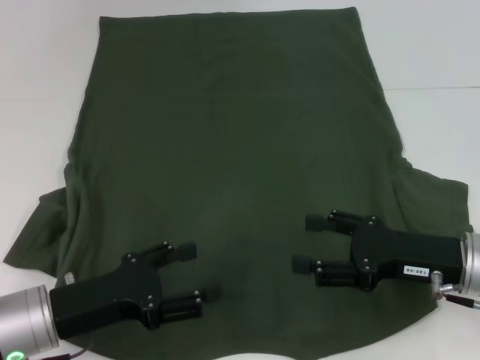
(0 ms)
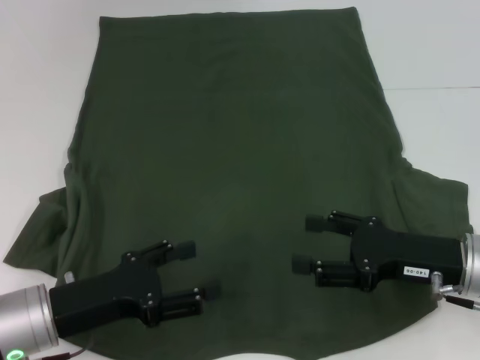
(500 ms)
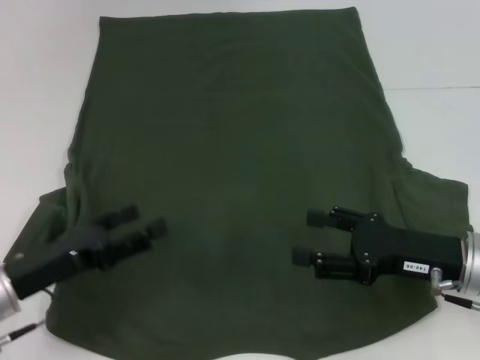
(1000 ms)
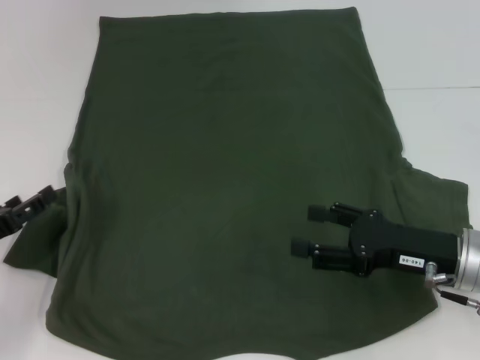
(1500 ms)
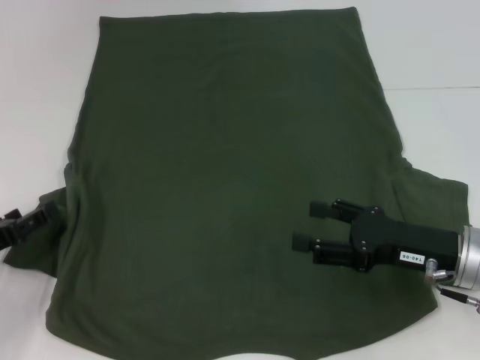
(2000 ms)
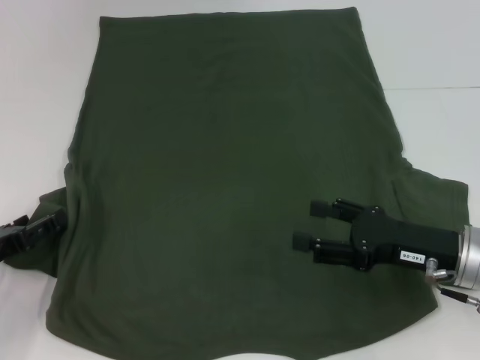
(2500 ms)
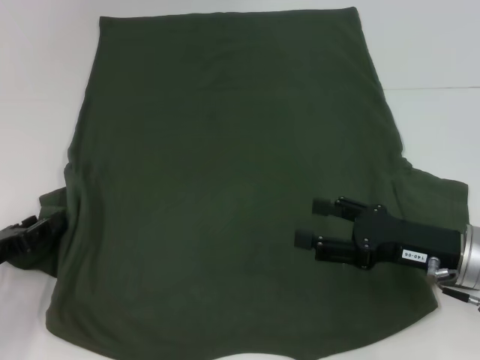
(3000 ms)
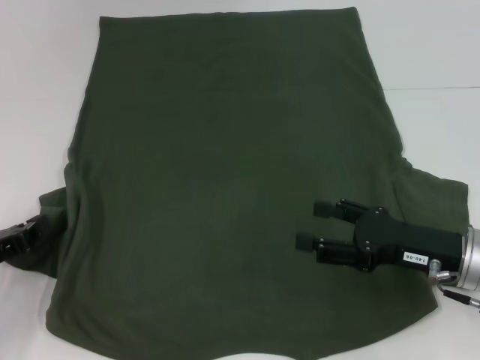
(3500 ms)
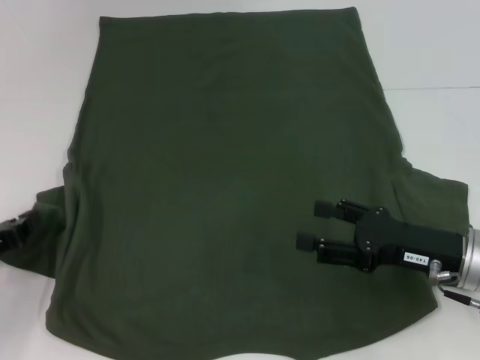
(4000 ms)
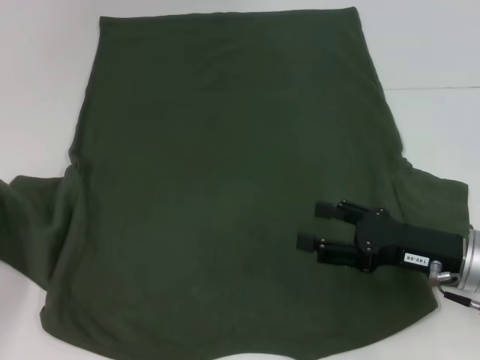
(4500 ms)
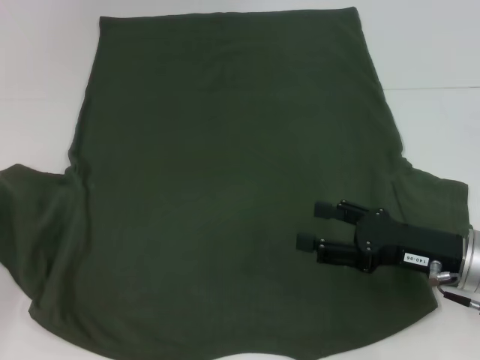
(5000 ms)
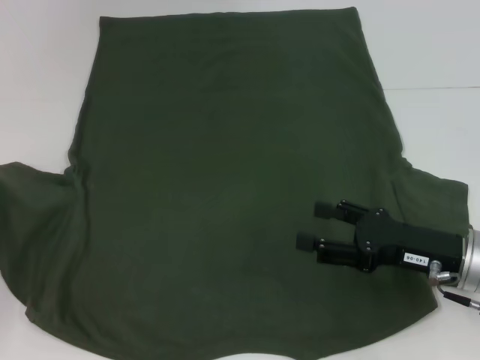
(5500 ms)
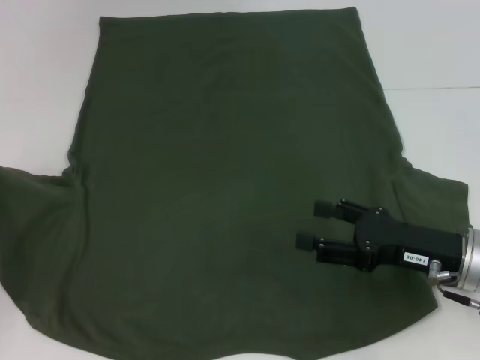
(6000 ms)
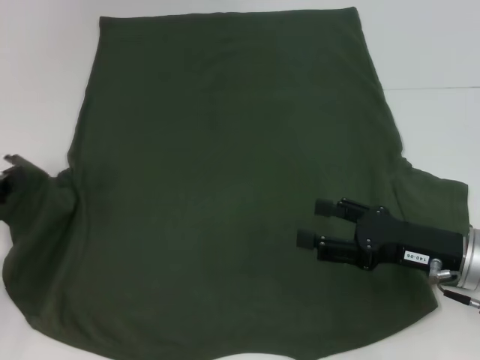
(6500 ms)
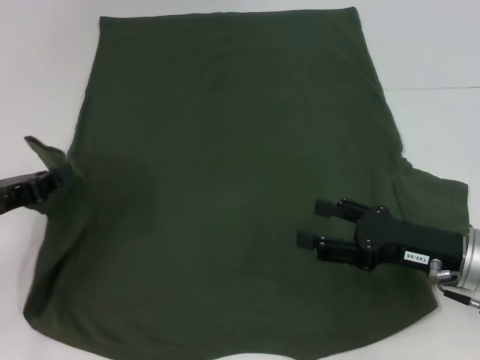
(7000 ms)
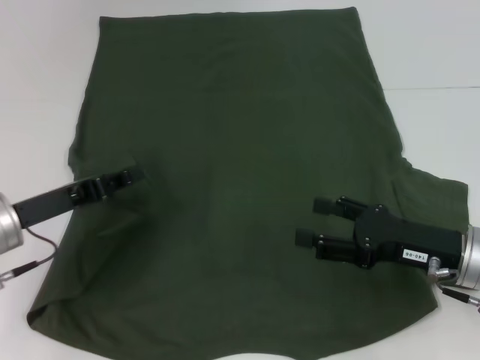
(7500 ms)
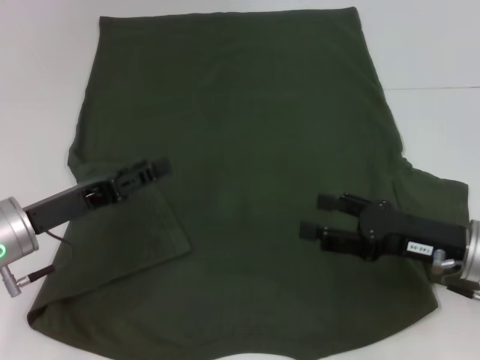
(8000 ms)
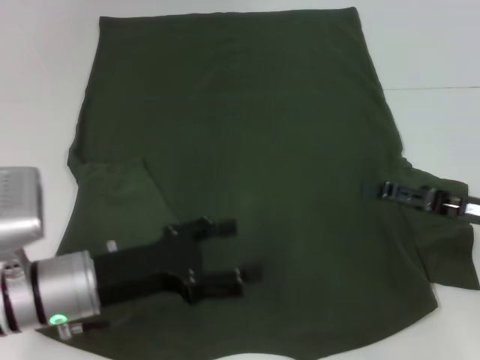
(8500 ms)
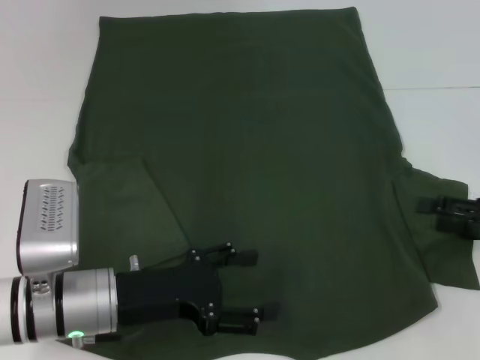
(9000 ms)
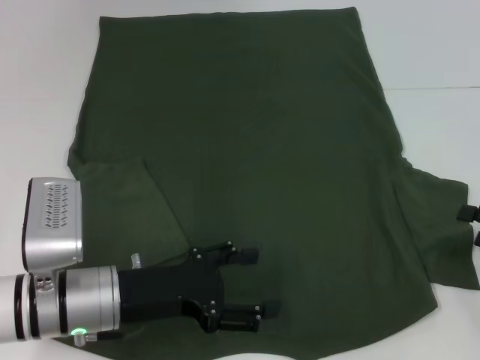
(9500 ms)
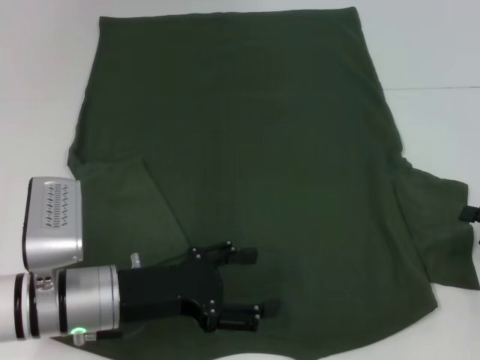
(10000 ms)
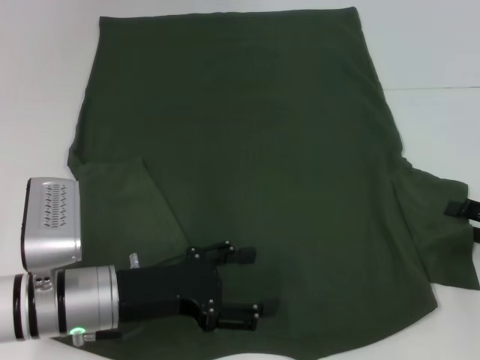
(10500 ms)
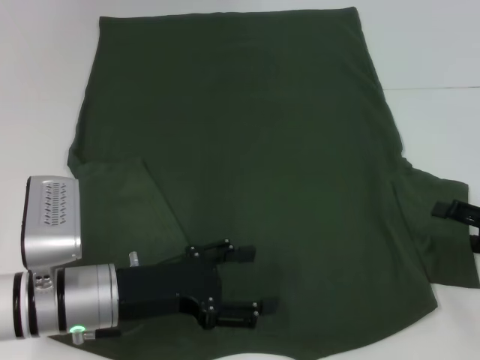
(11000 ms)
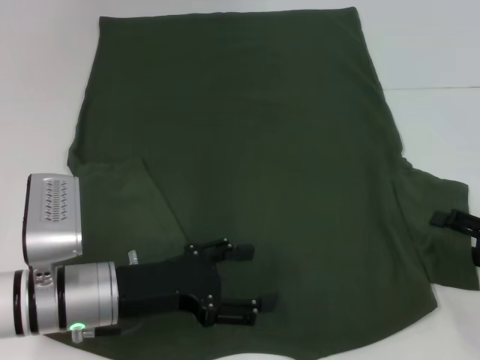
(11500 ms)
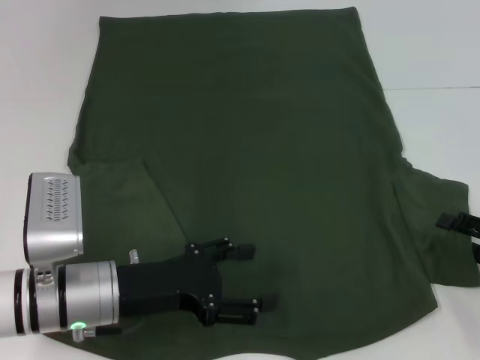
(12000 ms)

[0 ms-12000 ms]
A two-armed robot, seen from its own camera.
Step, 0 ms to 7500 ms: Fold the bottom left sleeve with your left hand.
0 ms to 2000 ms: The left gripper moves to the left, some 10 cm.
2000 ms to 4000 ms: The left gripper closes its fingers.
4000 ms to 6000 ms: The left gripper shifts by some 5 cm.
6000 ms to 8000 ms: The left gripper shifts approximately 15 cm to the right, and opens up.
8000 ms to 10000 ms: The right gripper shifts roughly 15 cm to the right; the left gripper is displaced to the right by roughly 10 cm, and opens up.
10000 ms to 12000 ms: The grippers make only small movements.

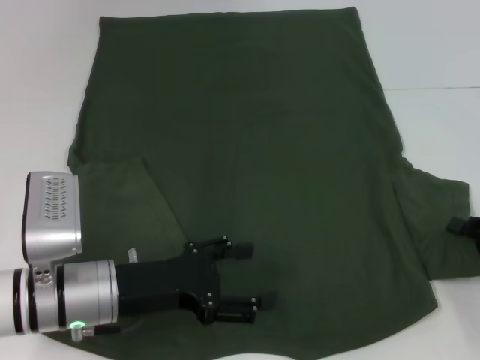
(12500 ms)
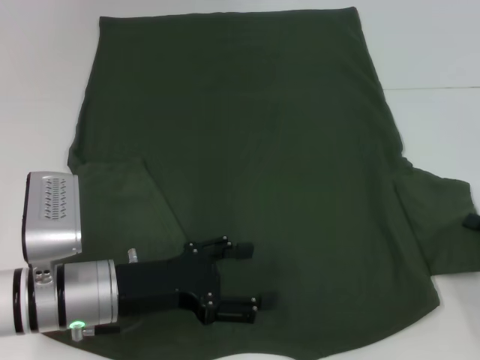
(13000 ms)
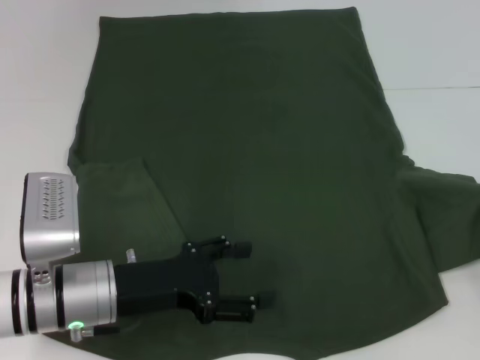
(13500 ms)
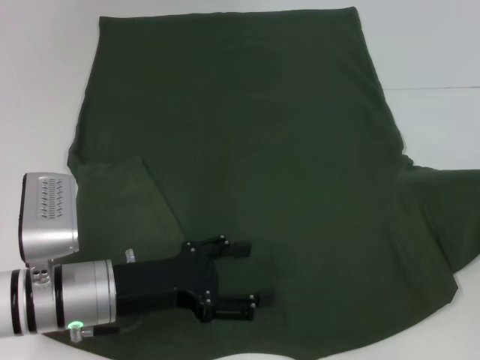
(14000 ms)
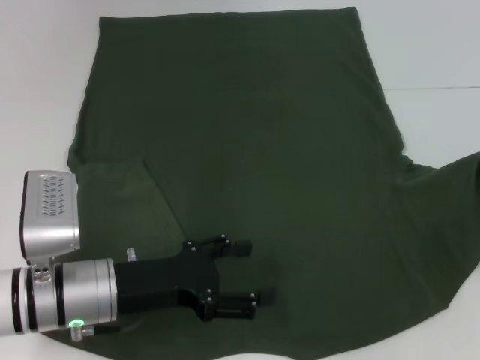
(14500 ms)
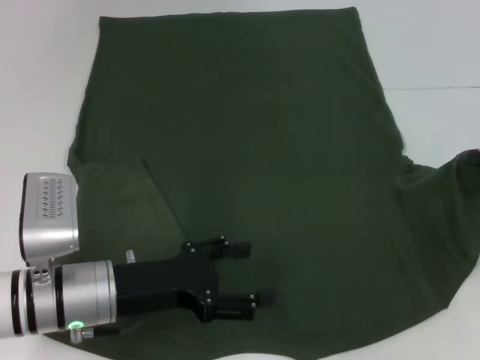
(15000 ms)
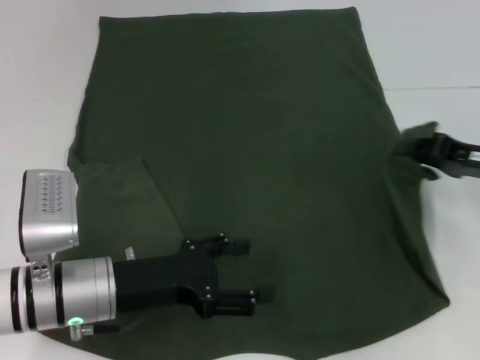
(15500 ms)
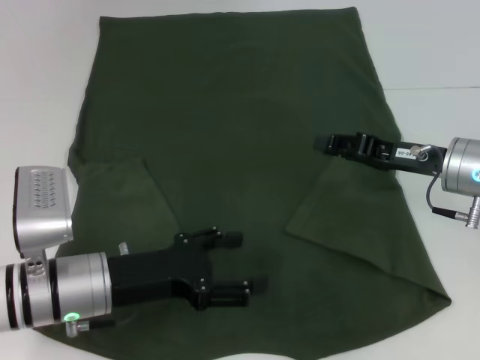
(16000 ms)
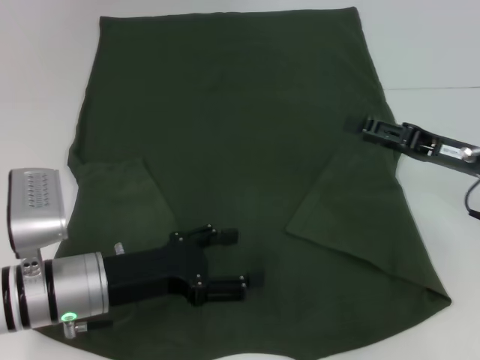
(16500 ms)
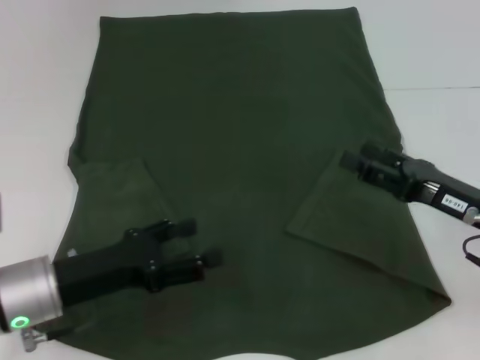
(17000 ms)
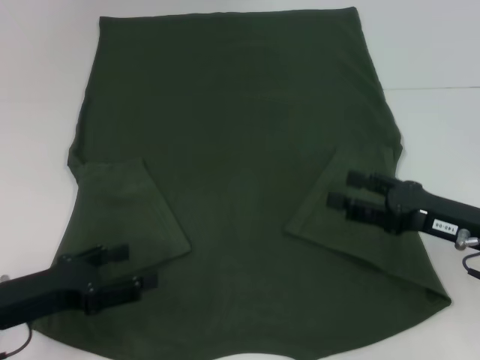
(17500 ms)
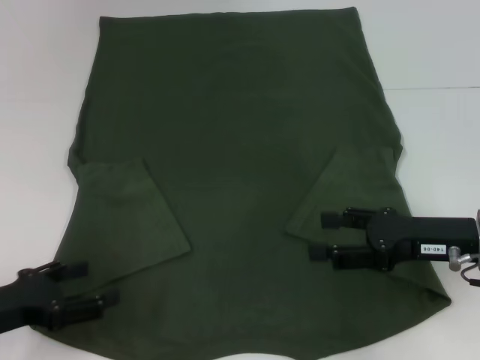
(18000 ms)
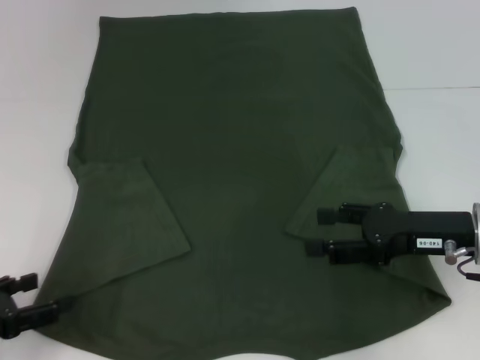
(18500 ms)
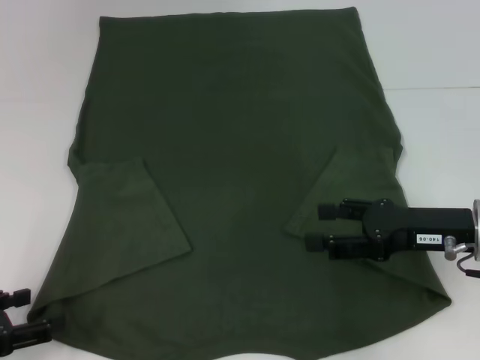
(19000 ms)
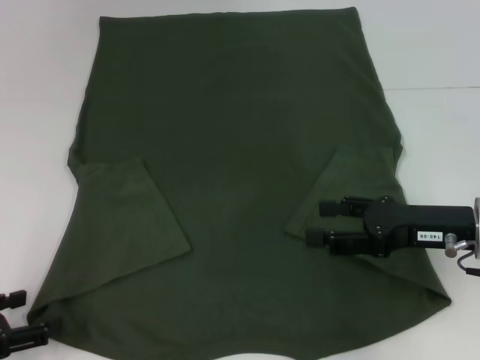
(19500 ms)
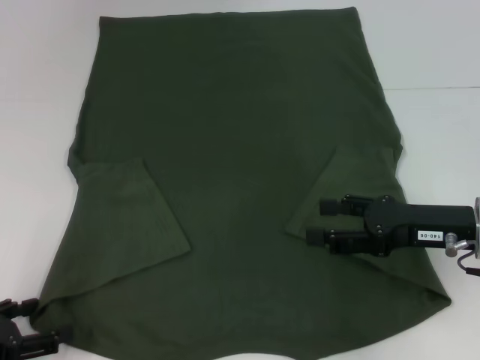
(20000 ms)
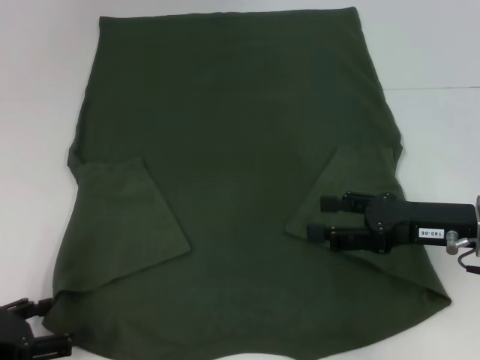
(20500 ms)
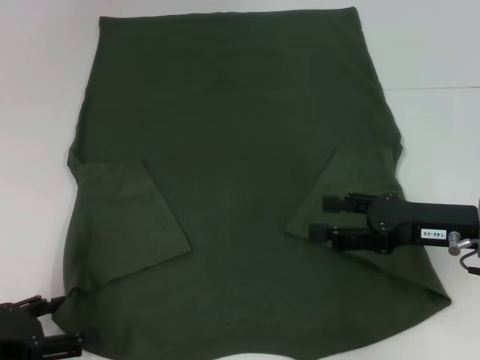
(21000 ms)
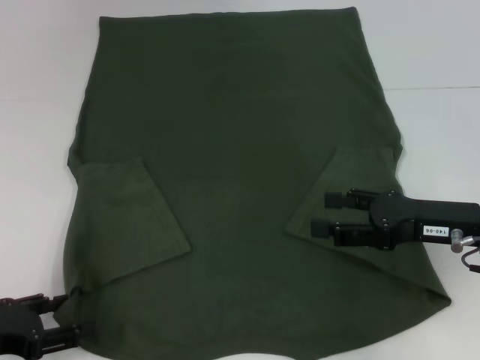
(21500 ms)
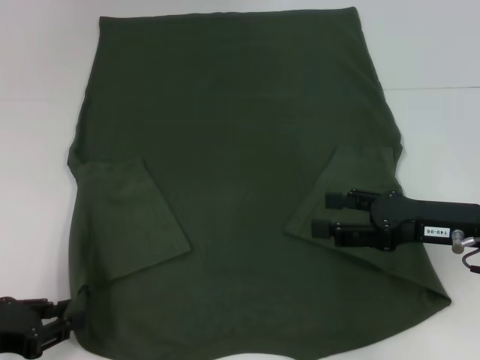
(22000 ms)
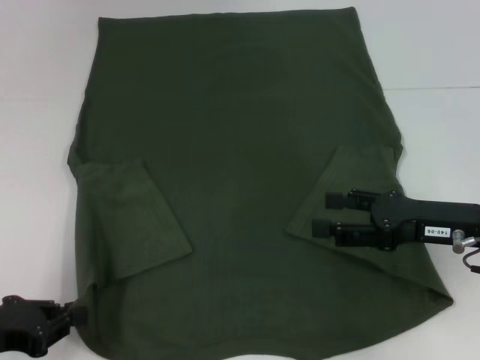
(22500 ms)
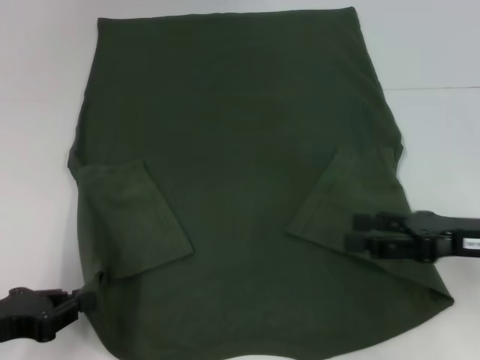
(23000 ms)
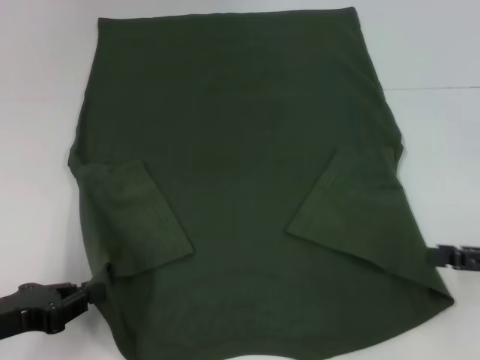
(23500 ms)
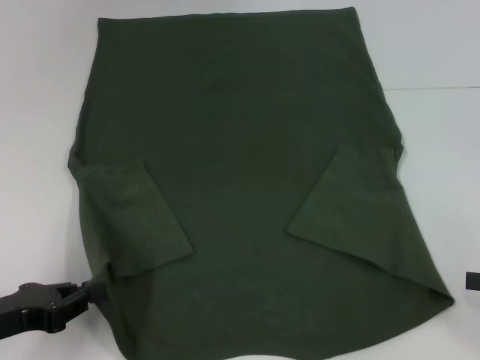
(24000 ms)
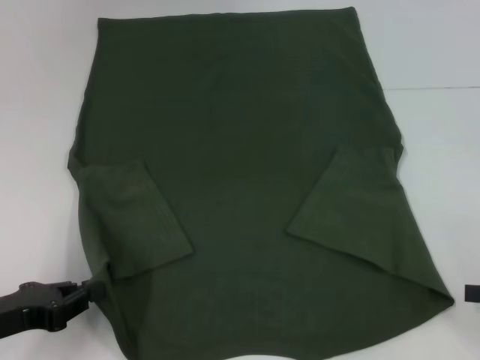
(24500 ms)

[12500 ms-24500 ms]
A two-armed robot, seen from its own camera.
Step, 12500 ms to 16000 ms: Fold the bottom right sleeve with your right hand.
Step, 16500 ms to 22500 ms: Grab the bottom left corner with your left hand.
12500 ms to 14500 ms: The right gripper goes roughly 5 cm forward, and closes its fingers.
14500 ms to 16500 ms: The right gripper moves to the left, roughly 10 cm, and opens up.
16500 ms to 18500 ms: The left gripper moves to the left and backward, approximately 15 cm.
18500 ms to 20500 ms: The grippers make only small movements.
20500 ms to 22500 ms: The left gripper closes up.
22500 ms to 24500 ms: The right gripper heads to the right and backward, covering roughly 15 cm.

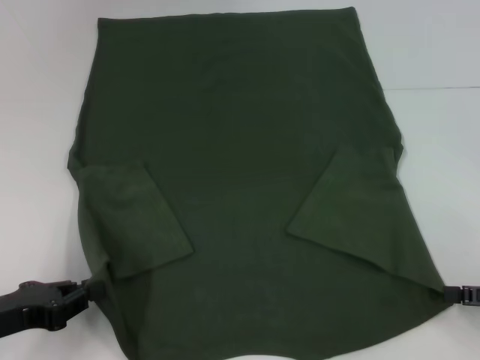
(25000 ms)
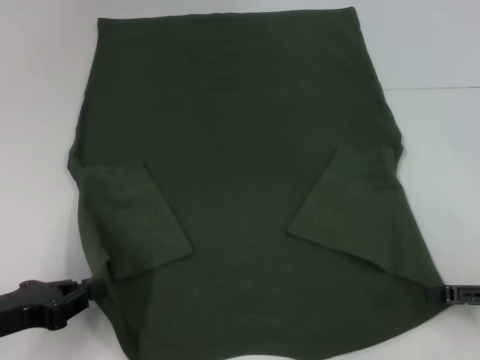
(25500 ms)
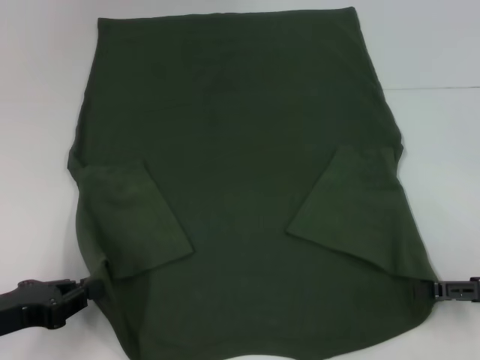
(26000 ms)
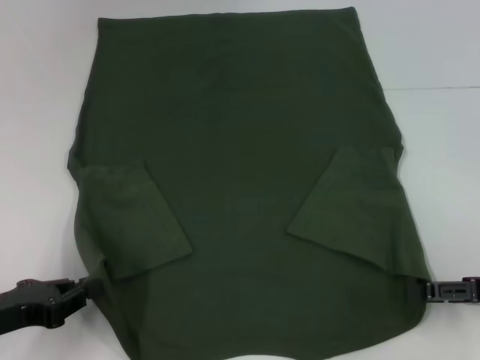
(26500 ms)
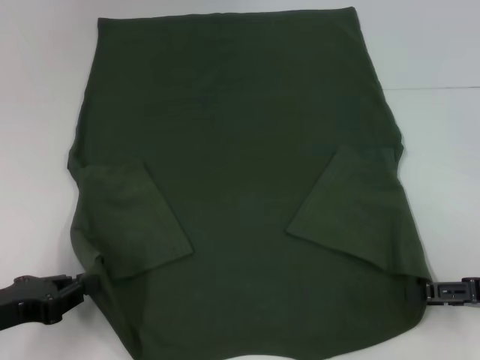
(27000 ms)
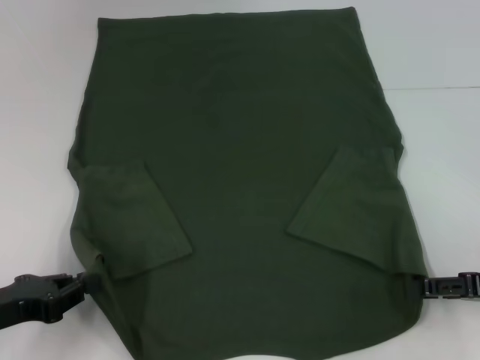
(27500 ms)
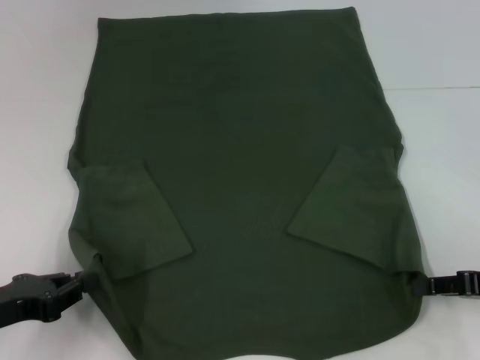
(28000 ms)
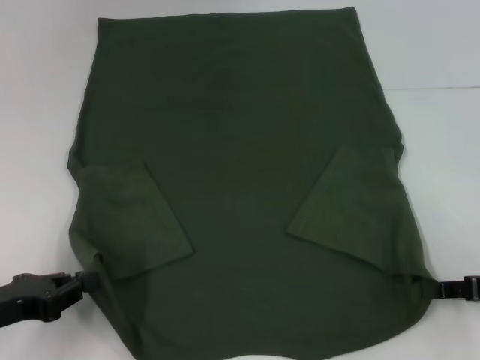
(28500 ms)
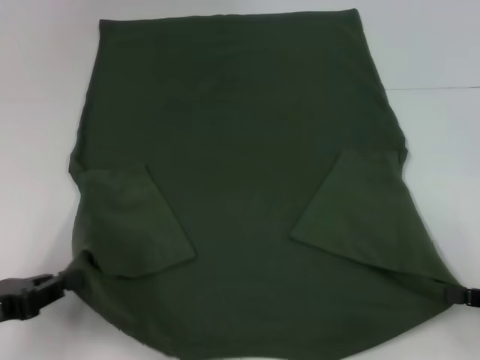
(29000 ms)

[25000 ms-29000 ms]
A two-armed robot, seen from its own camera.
Step, 25000 ms to 29000 ms: Grab the bottom right corner with your right hand.
25000 ms to 27000 ms: The grippers make only small movements.
27000 ms to 29000 ms: The right gripper closes.
